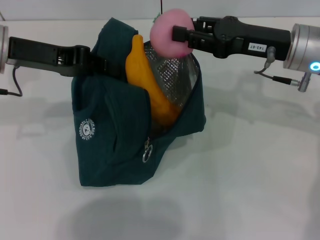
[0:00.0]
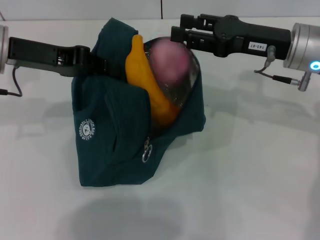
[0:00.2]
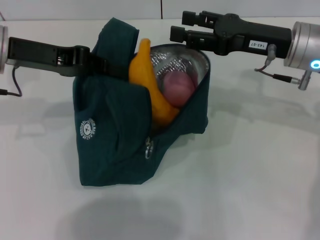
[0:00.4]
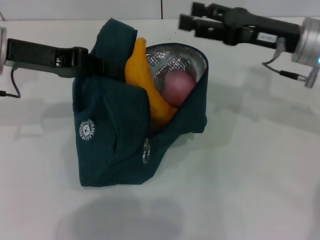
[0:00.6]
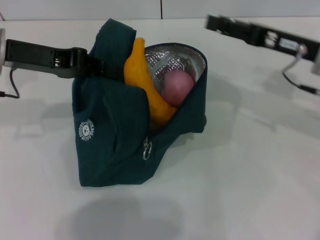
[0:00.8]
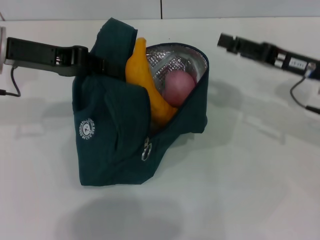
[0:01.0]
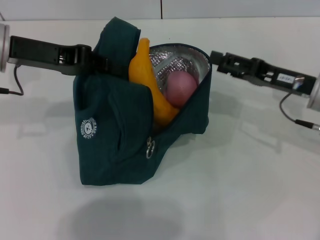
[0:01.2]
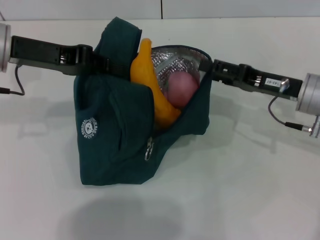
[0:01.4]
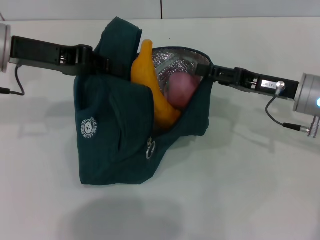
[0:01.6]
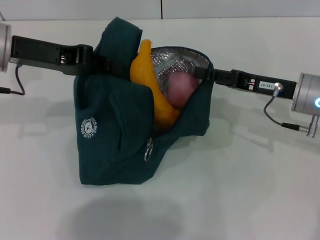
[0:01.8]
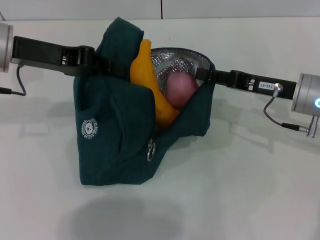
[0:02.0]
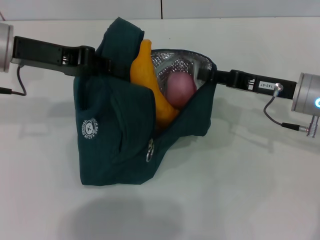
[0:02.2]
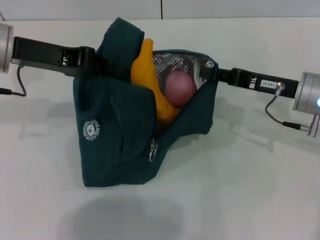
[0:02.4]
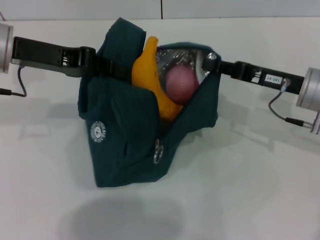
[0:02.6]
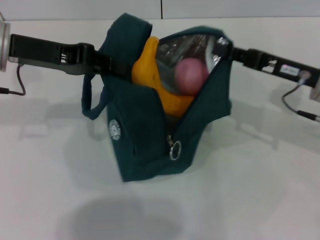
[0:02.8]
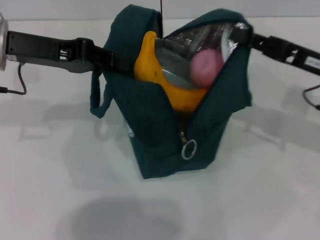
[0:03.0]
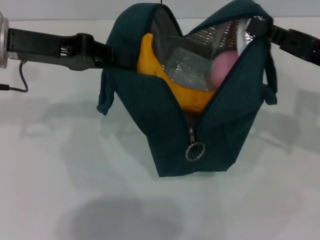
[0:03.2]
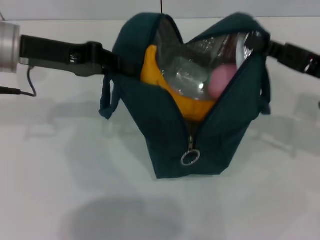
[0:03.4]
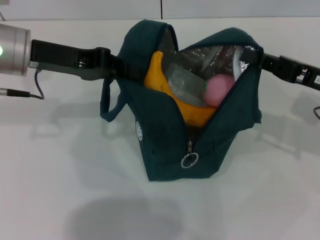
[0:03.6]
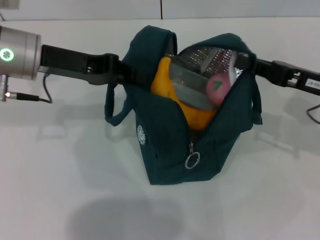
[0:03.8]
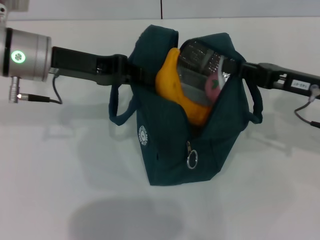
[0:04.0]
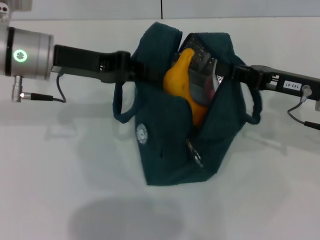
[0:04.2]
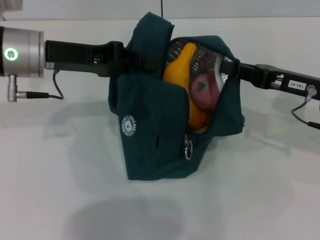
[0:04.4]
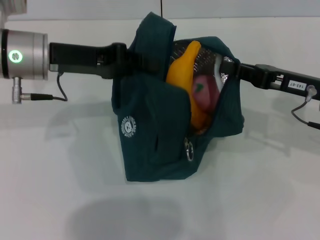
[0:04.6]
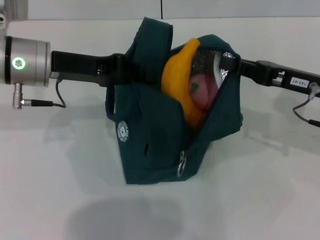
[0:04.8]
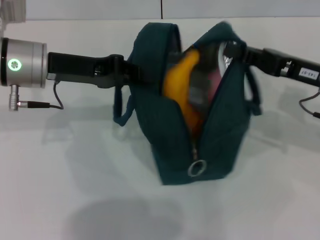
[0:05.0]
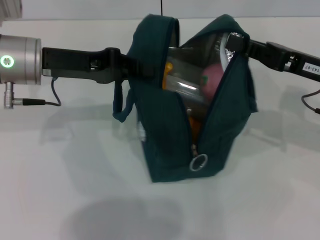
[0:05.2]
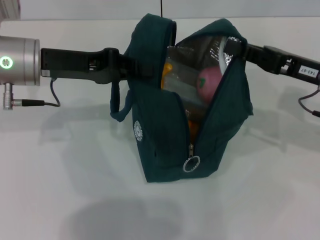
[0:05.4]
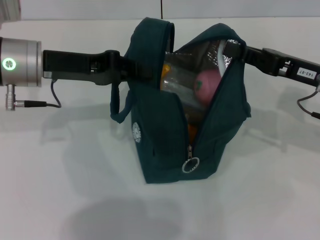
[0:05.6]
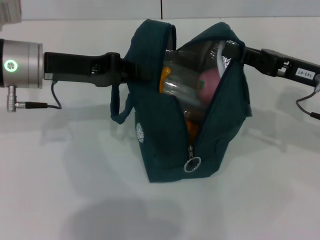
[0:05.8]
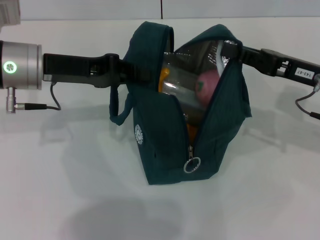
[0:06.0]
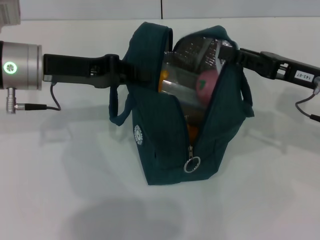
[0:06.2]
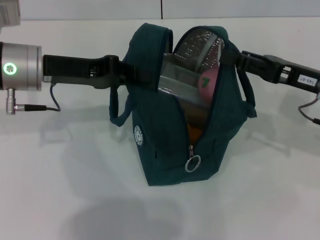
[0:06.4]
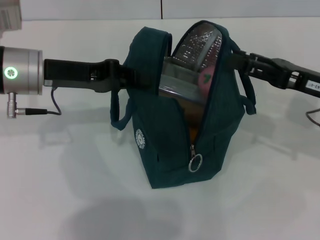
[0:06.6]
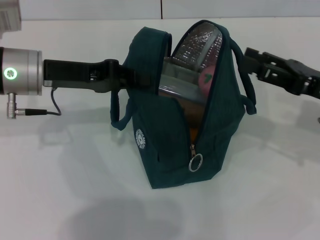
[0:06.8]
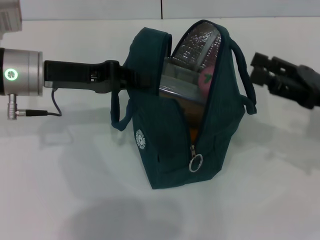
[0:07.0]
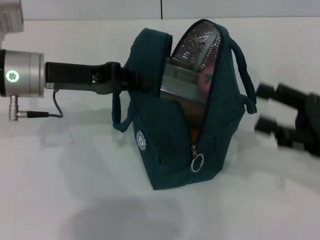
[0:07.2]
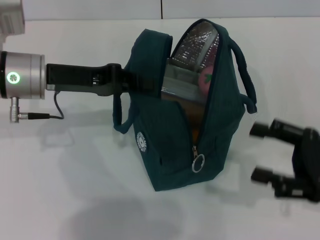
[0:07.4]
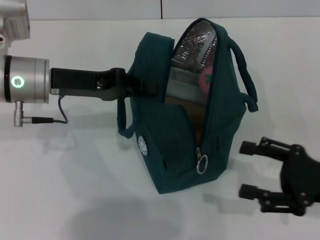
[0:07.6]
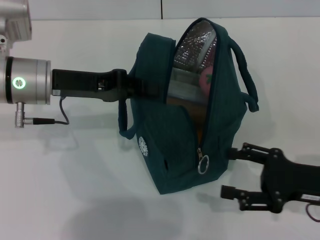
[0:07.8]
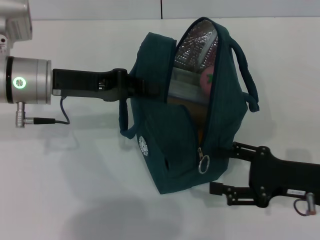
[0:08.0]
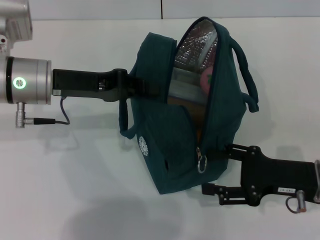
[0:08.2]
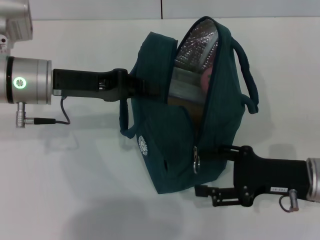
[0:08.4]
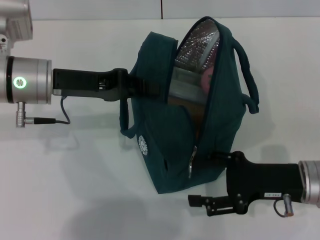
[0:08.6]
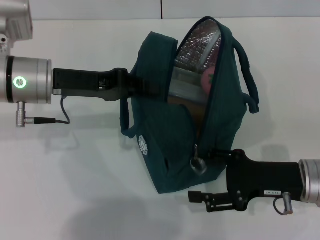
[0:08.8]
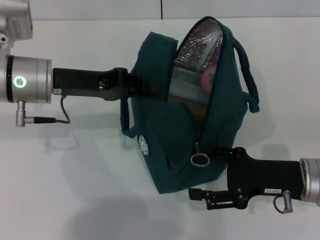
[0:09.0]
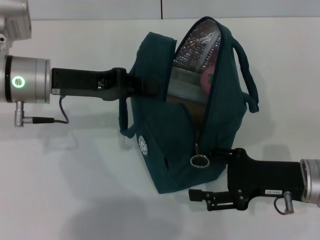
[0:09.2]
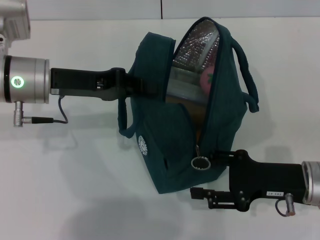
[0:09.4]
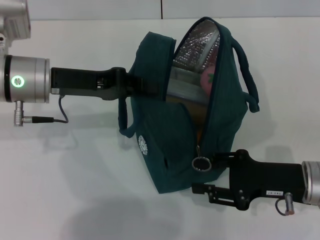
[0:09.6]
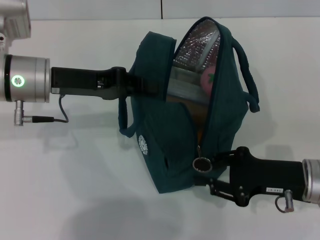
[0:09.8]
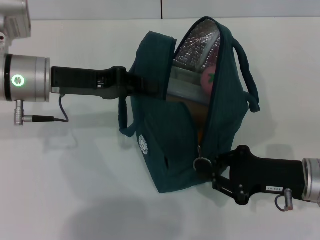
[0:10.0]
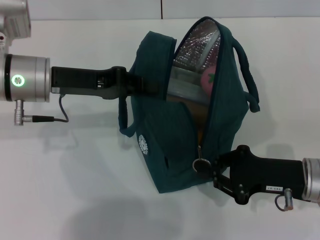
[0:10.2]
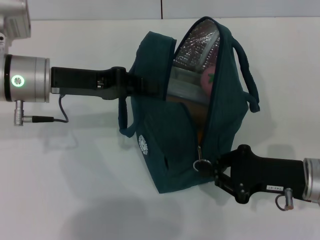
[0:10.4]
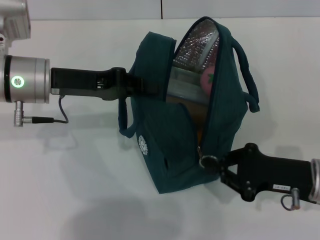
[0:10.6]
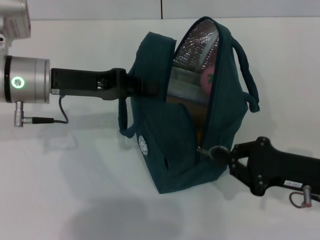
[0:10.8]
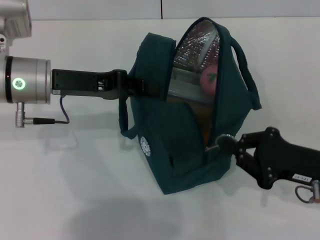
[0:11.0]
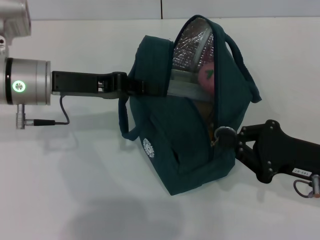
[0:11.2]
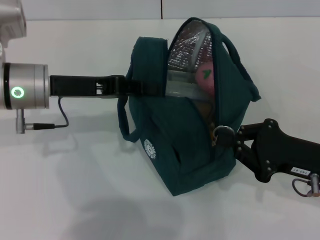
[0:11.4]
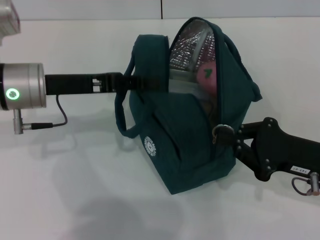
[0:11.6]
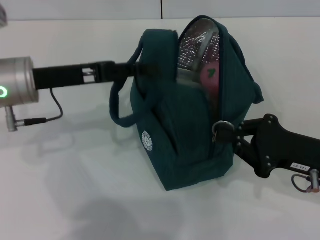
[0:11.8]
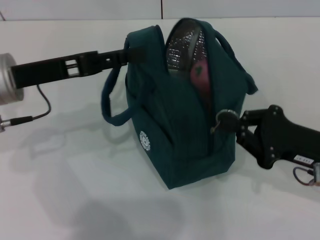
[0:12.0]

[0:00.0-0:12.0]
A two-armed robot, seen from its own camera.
Step, 0:00.4 to 0:06.6: Hold the lunch bag with your right hand.
0:00.0 to 0:01.6: The right gripper goes some 5 cm downward, and opens its fingers.
0:01.6 to 0:03.0: The right gripper shifts by approximately 5 cm, and closes its fingers.
0:06.0 to 0:07.6: The right gripper travels backward and downward by about 15 cm, and opens its fingers.
0:07.6 to 0:09.0: The right gripper heads to the left, covering roughly 5 cm.
0:09.0 to 0:10.4: The right gripper closes its fingers.
0:10.4 to 0:12.0: The left gripper opens up.

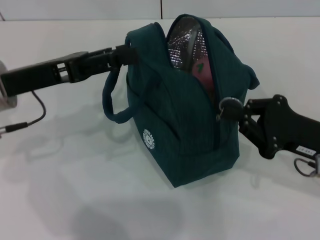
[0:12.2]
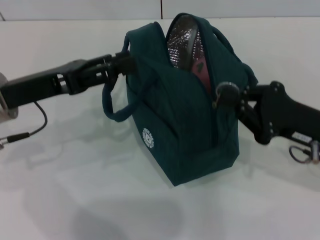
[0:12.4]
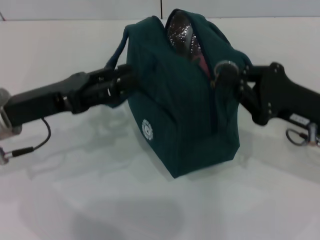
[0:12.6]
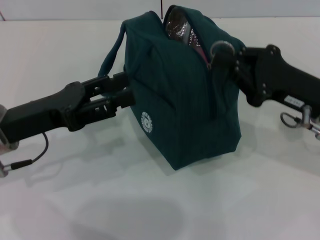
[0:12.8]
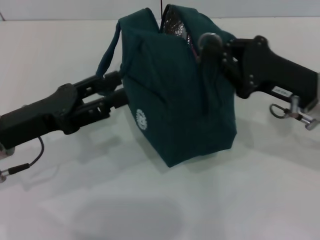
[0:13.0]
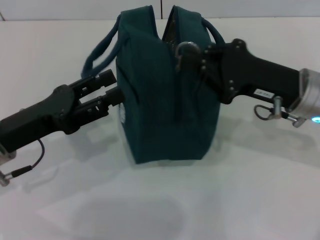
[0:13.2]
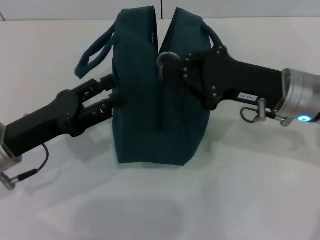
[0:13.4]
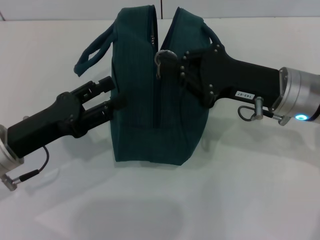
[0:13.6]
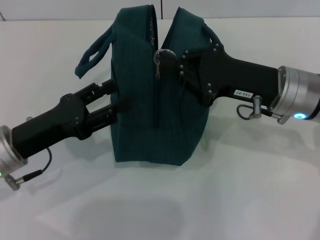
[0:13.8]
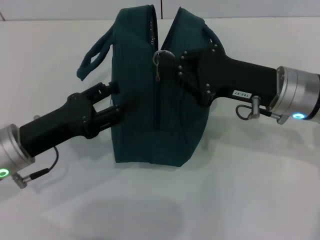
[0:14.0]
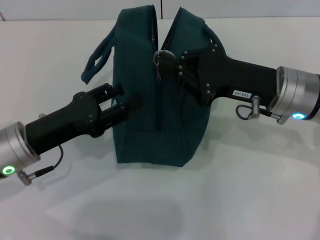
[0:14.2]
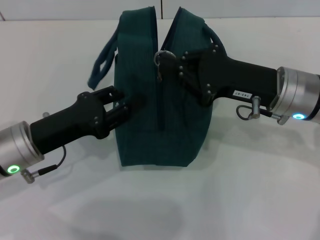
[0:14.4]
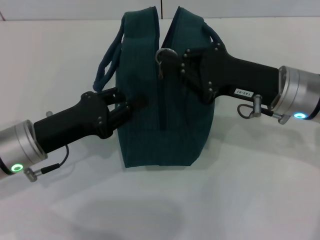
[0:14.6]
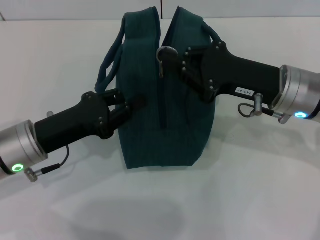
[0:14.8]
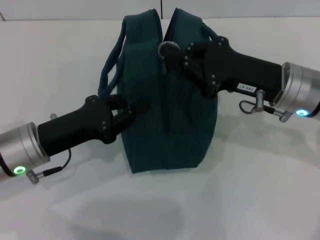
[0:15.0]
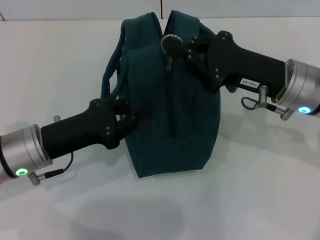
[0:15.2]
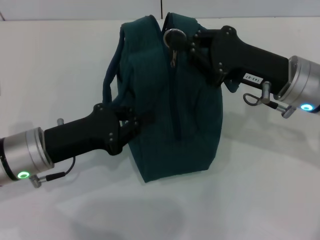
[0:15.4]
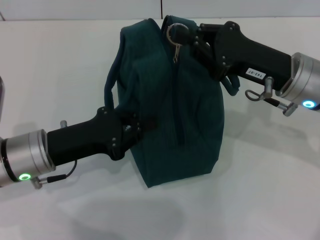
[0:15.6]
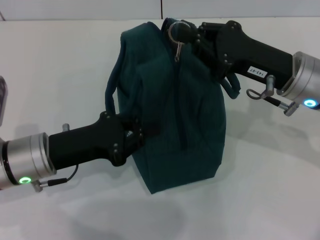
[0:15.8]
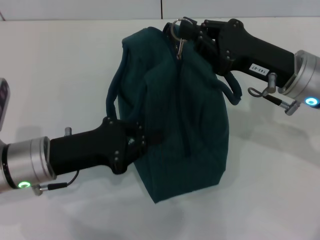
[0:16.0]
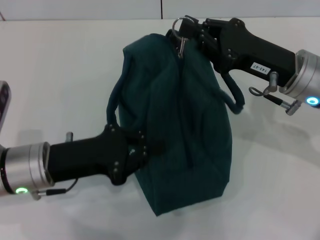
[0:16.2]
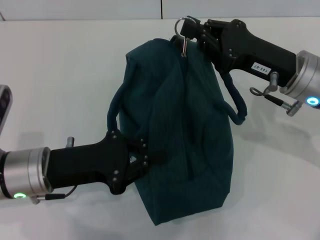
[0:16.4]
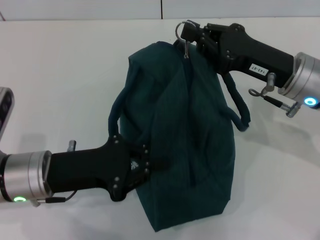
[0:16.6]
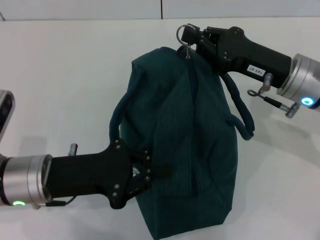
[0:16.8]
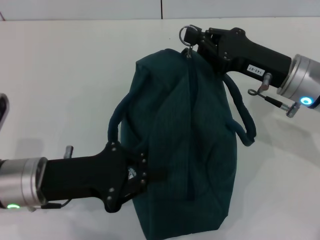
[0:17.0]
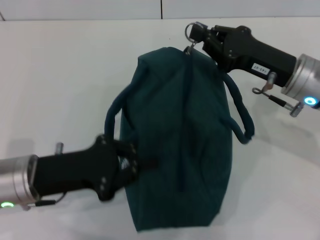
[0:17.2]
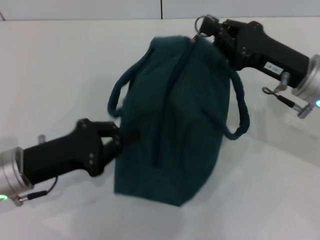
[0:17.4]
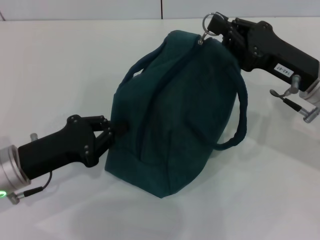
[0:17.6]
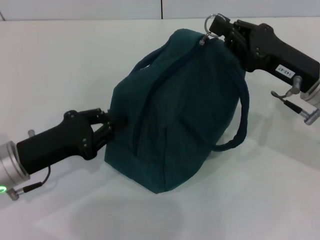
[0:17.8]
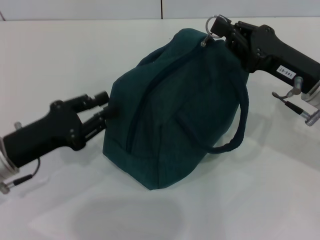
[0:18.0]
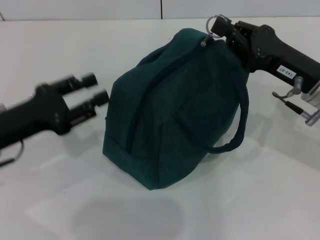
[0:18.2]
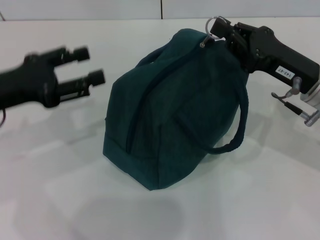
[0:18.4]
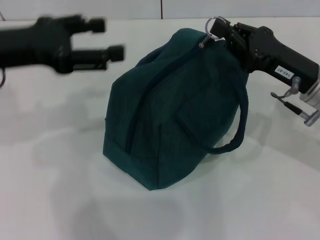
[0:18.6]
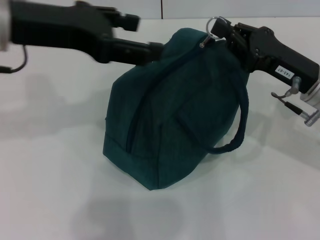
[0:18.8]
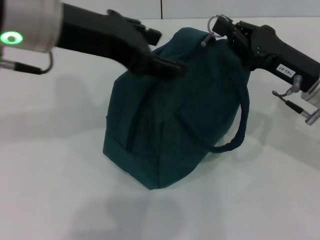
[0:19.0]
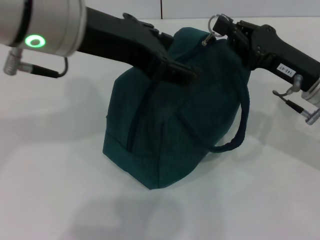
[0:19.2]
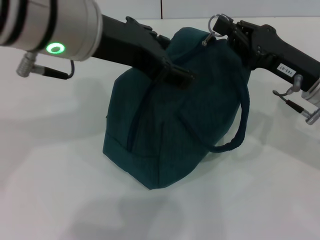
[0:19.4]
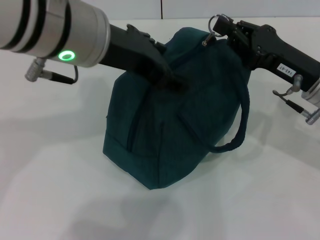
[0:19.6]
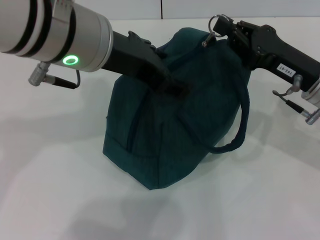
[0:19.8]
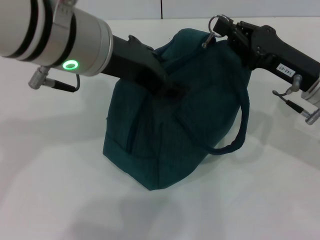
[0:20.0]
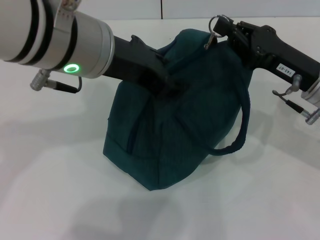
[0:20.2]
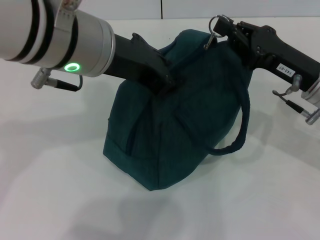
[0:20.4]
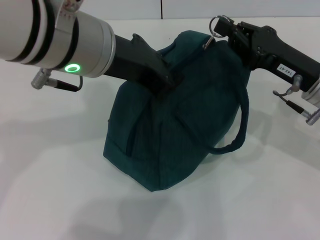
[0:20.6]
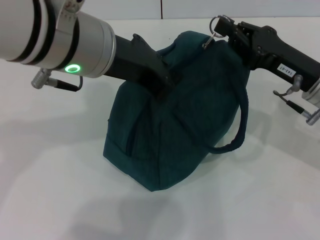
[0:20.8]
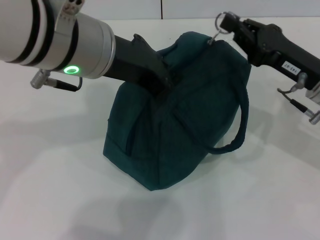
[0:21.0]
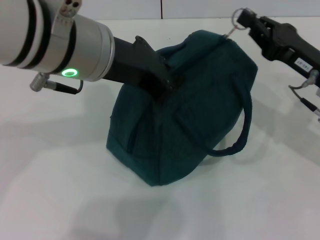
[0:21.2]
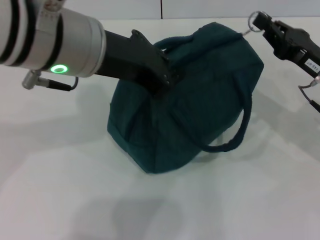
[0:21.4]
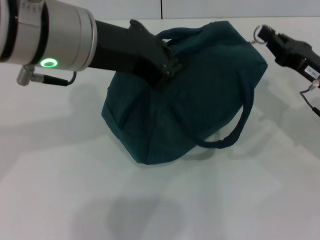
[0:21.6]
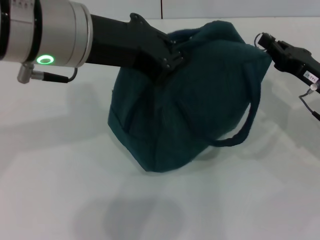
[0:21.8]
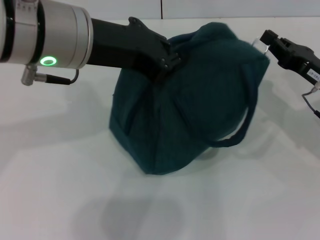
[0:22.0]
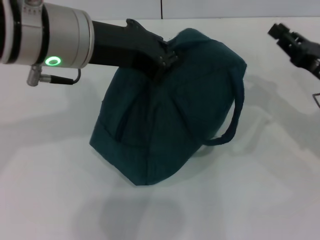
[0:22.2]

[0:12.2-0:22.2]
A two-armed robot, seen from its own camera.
Step, 0:12.6 to 0:21.8: Zip up the lunch bag with your right hand.
0:12.2 to 0:13.6: The right gripper goes approximately 10 cm to the left and forward, while the left gripper travels downward and backward by some 10 cm.
0:13.6 to 0:15.0: The left gripper closes its fingers.
0:18.0 to 0:19.4: The left gripper is displaced upward and to the right by roughly 25 cm, and opens up.
0:19.4 to 0:20.8: The left gripper closes its fingers.
0:20.8 to 0:22.2: The right gripper travels to the right by roughly 5 cm.
